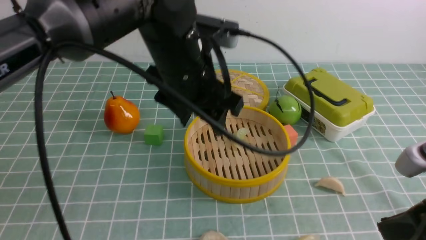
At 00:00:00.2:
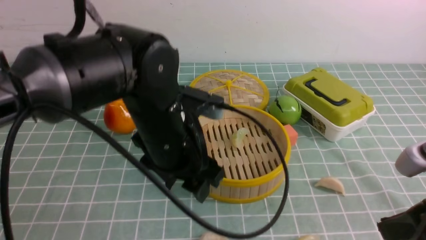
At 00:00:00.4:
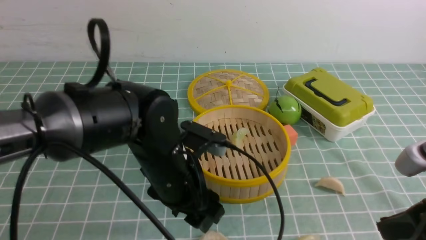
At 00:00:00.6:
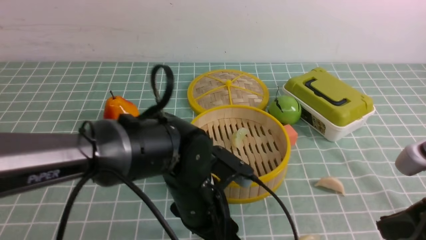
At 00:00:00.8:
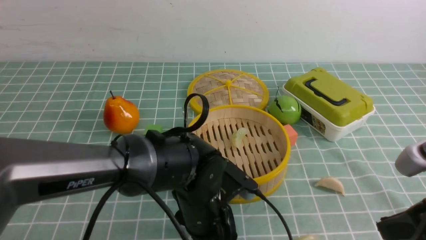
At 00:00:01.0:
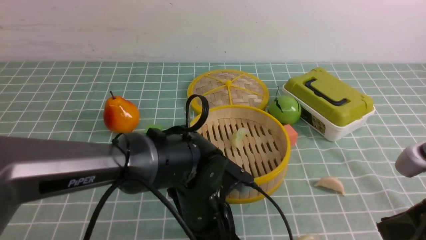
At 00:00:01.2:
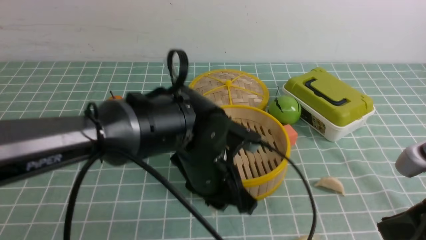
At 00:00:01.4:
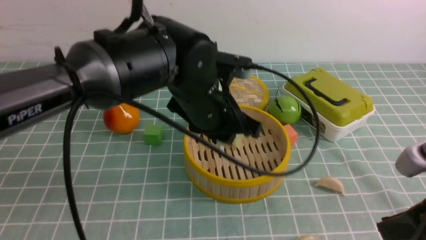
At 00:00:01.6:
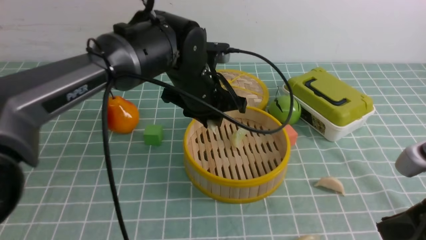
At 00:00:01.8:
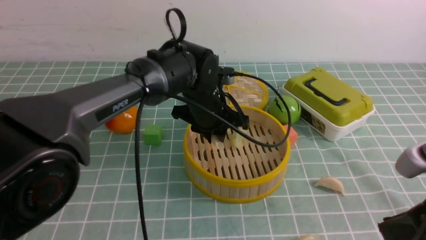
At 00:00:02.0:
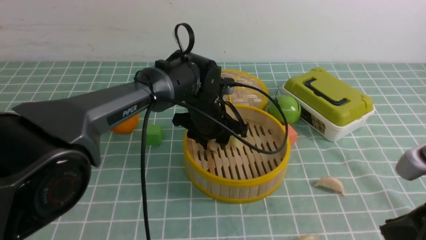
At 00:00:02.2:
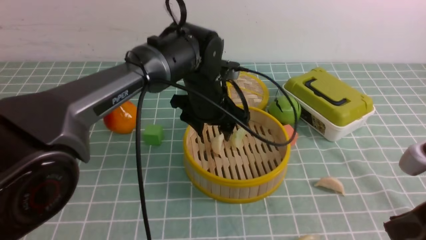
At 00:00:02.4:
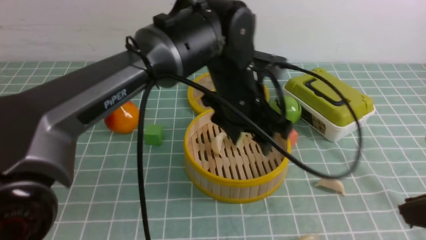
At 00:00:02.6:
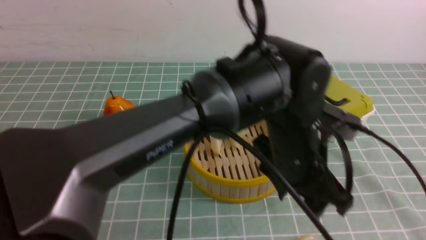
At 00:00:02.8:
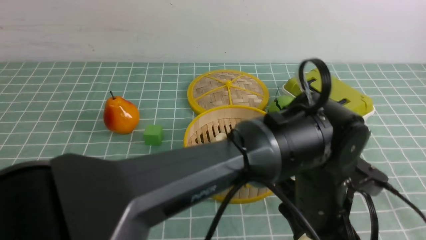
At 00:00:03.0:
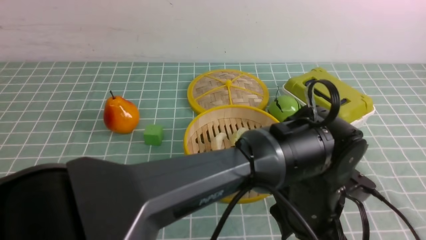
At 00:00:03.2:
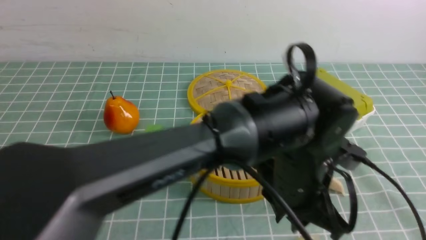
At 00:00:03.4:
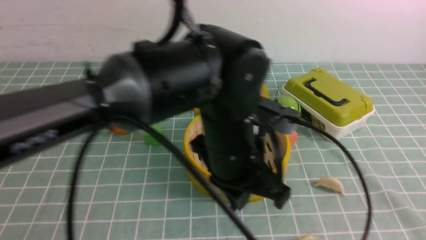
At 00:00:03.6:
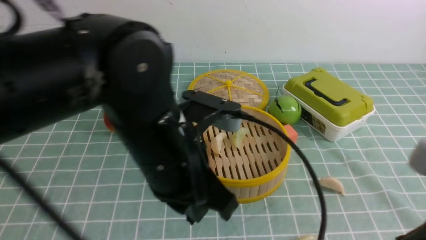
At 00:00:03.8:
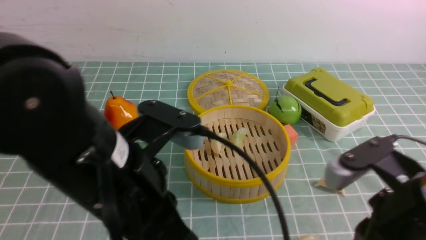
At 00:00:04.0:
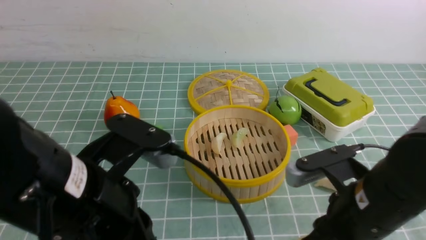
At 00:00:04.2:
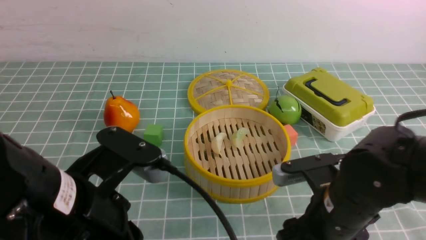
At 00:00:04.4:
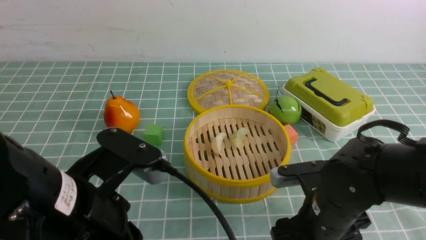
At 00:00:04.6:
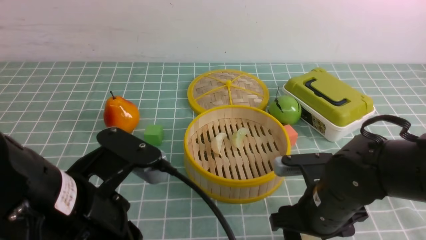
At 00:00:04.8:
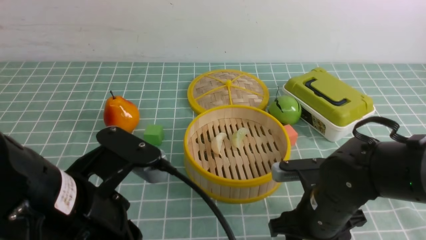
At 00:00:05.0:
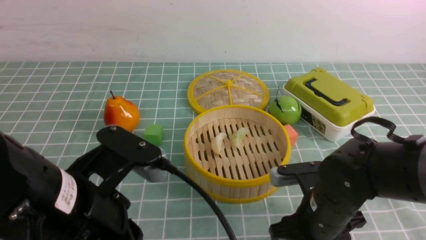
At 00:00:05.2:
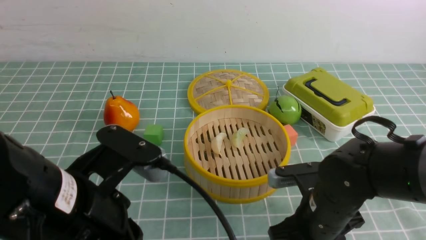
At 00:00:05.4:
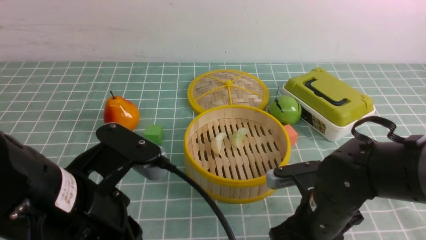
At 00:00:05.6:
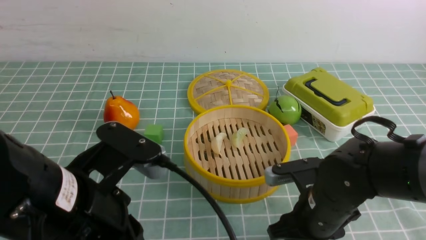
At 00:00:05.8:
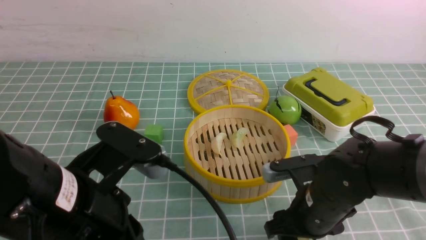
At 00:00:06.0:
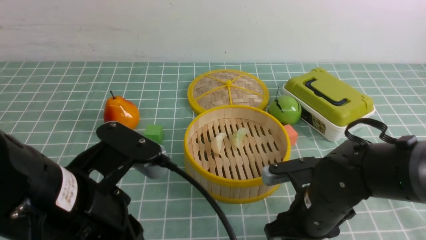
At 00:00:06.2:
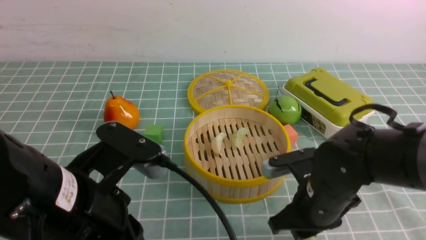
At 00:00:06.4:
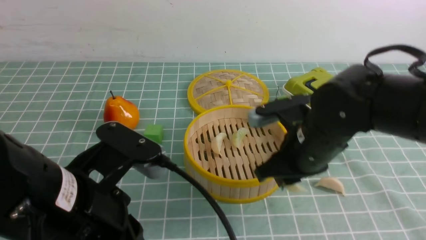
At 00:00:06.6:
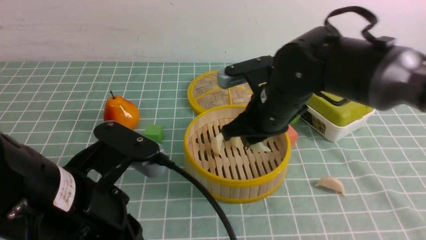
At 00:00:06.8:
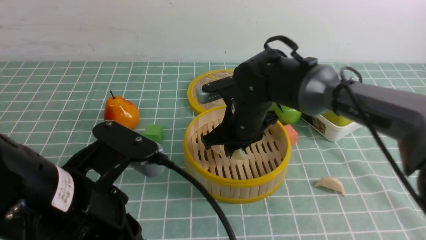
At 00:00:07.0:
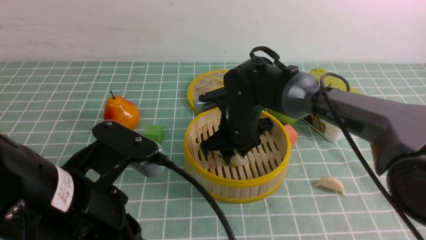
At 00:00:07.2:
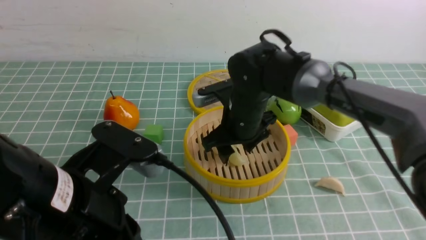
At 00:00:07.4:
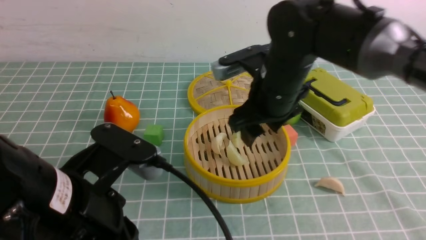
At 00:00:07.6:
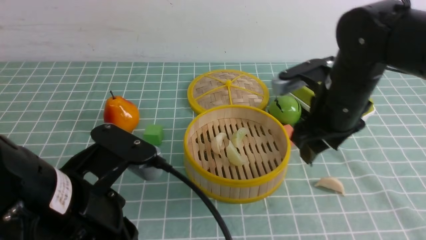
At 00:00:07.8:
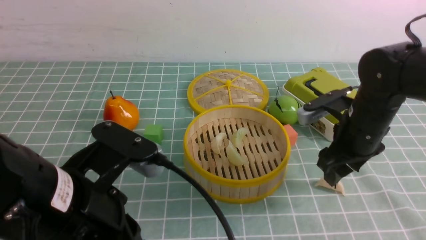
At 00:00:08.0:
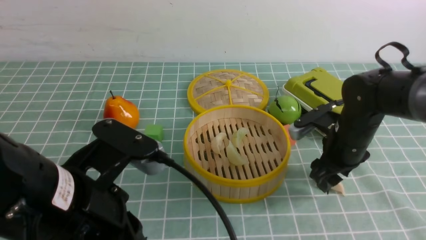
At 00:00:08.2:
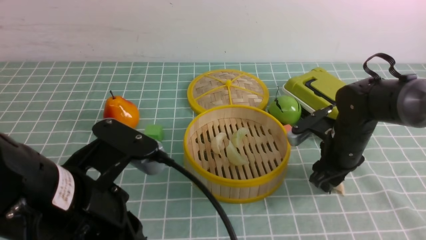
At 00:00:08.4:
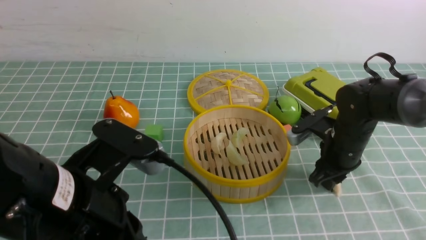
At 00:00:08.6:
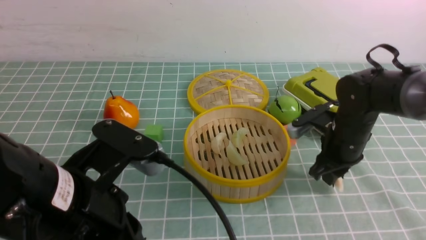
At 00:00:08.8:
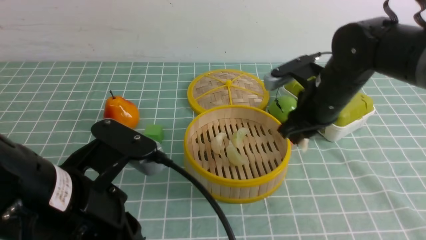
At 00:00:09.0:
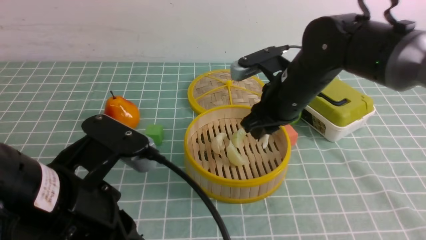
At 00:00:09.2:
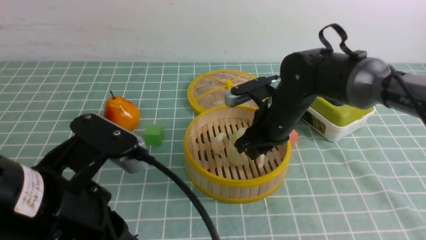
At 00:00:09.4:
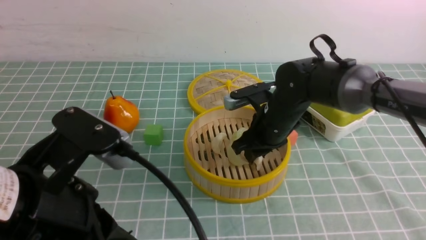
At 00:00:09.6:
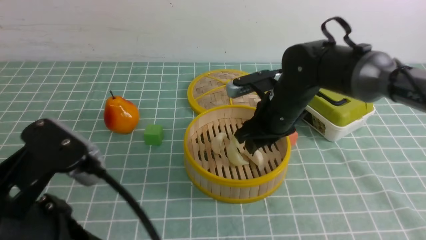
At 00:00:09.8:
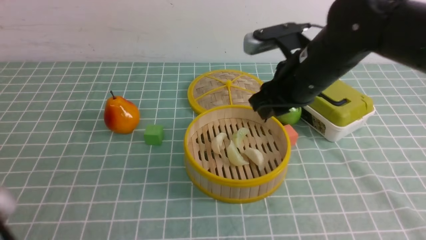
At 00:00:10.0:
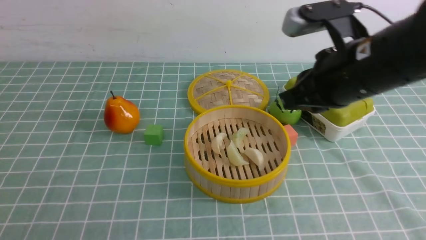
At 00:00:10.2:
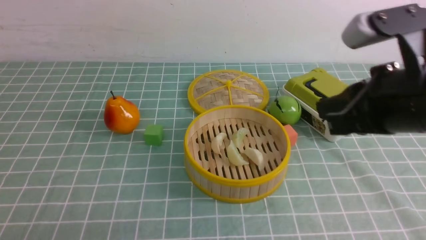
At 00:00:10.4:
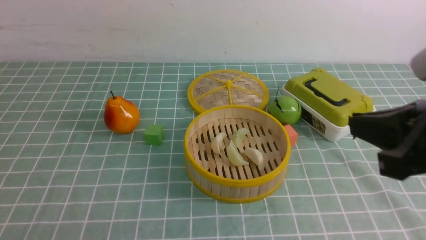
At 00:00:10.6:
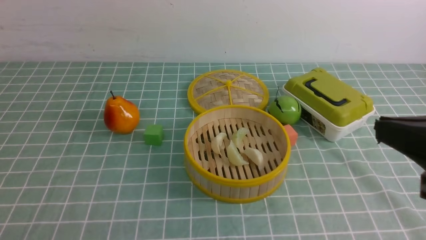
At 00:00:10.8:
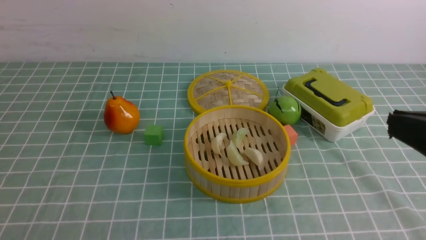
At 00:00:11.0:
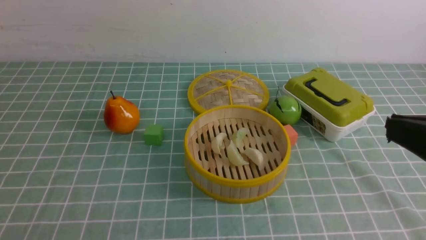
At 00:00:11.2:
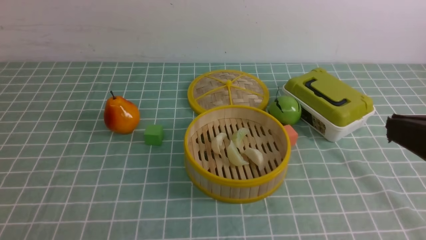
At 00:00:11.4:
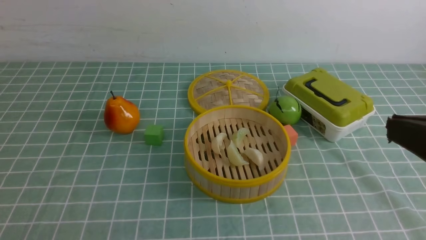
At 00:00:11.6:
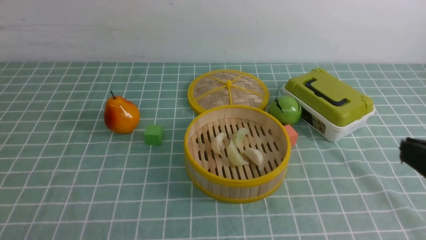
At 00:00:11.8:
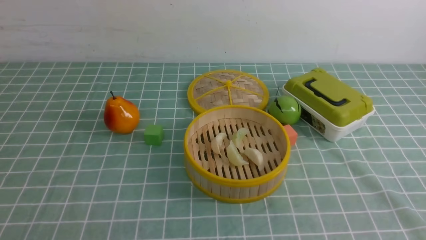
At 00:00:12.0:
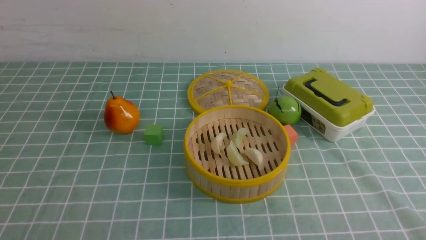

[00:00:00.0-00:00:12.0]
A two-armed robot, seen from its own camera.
Task of the whole recording: put the dumplings into the steamer on the table with the blue tablecloth.
Step, 00:00:00.0 to 00:00:01.2: use the left arm to grab a dumpling.
Step, 00:00:01.4 to 00:00:02.4: use the left arm to put the dumpling into the steamer.
Step, 00:00:02.6 to 00:00:06.4: use the right arm to grab a dumpling.
Step, 00:00:06.6 to 00:00:07.4: use the right arm to put the dumpling into the steamer.
Step, 00:00:07.6 to 00:00:08.6: use the right arm to grab a dumpling.
Step, 00:00:08.8 to 00:00:09.8: use the right arm to put the dumpling into the steamer.
00:00:00.0 to 00:00:01.6: The left gripper moves forward and downward, roughly 10 cm, and closes up.
00:00:01.6 to 00:00:03.0: The right gripper shifts some 10 cm upward and backward. Meanwhile the left gripper goes some 20 cm backward and to the right, and opens its fingers.
00:00:03.0 to 00:00:04.4: The right gripper moves downward, forward and to the left, about 30 cm, and opens up; the left gripper is displaced to the left and backward by approximately 25 cm, and closes.
00:00:04.4 to 00:00:06.0: The grippers move only a little.
00:00:06.0 to 00:00:07.6: The right gripper shifts roughly 15 cm upward and forward.
00:00:07.6 to 00:00:09.0: The right gripper goes downward and returns, approximately 10 cm each way, and closes.
00:00:09.0 to 00:00:10.4: The right gripper heads backward, upward and to the right, covering about 25 cm, and closes its fingers, while the left gripper is displaced to the left and backward by roughly 15 cm.
00:00:10.4 to 00:00:12.0: The right gripper heads downward, backward and to the right, covering roughly 20 cm.

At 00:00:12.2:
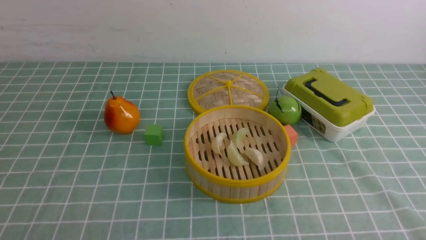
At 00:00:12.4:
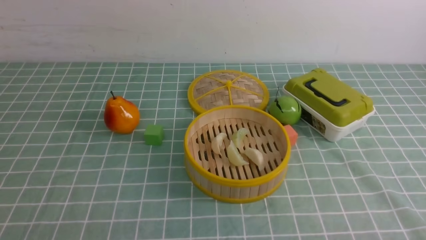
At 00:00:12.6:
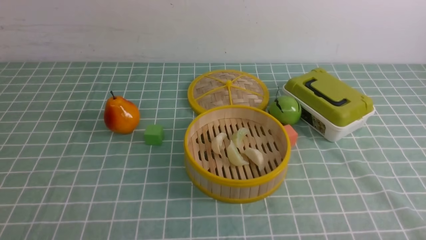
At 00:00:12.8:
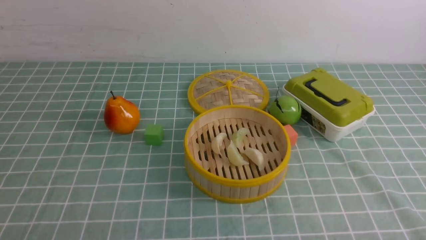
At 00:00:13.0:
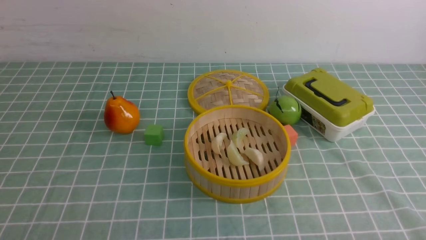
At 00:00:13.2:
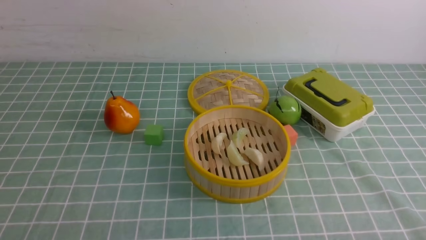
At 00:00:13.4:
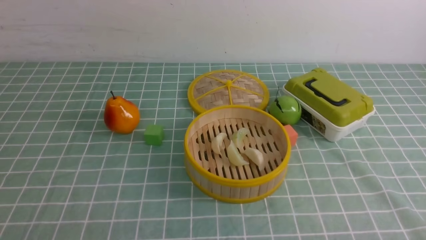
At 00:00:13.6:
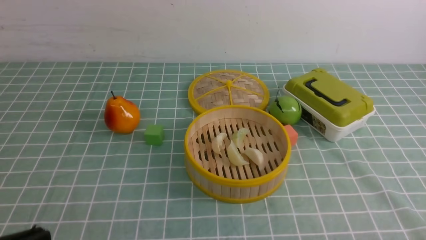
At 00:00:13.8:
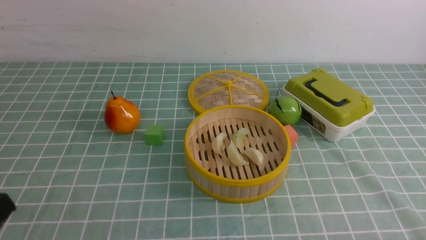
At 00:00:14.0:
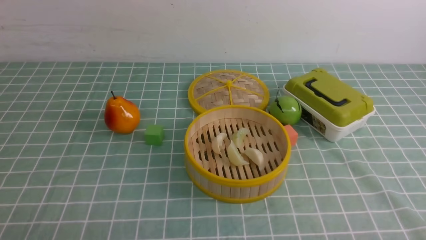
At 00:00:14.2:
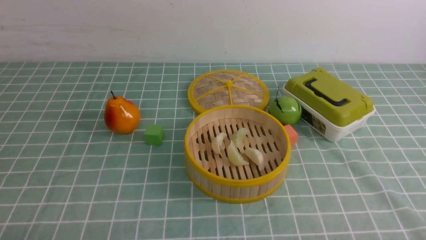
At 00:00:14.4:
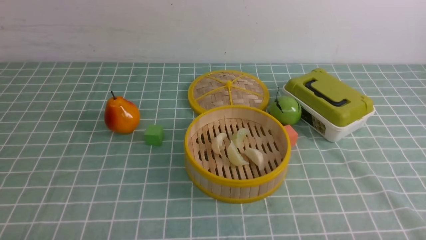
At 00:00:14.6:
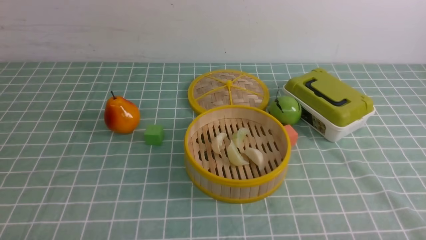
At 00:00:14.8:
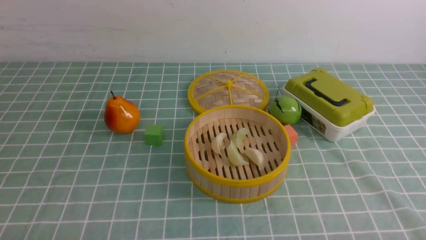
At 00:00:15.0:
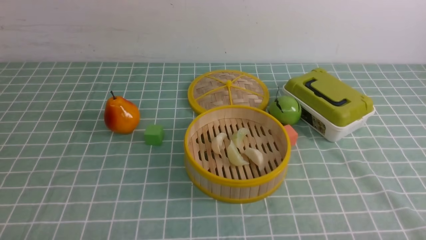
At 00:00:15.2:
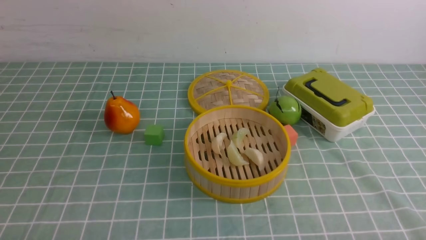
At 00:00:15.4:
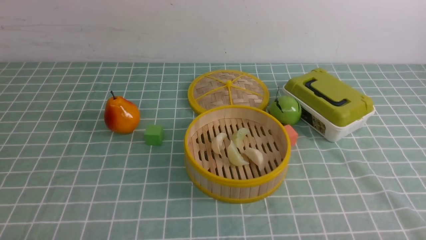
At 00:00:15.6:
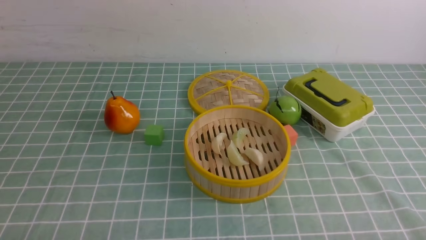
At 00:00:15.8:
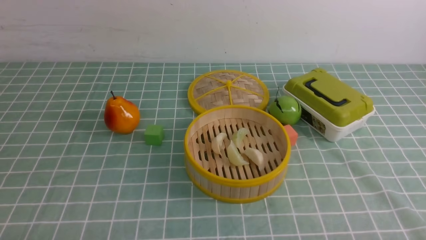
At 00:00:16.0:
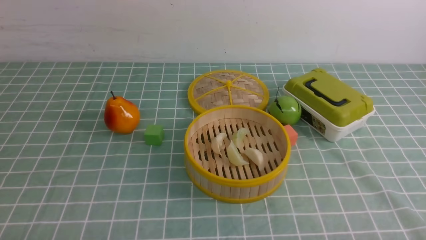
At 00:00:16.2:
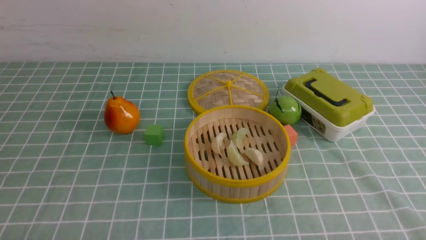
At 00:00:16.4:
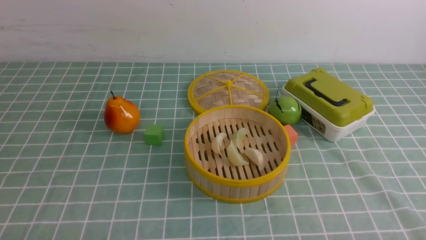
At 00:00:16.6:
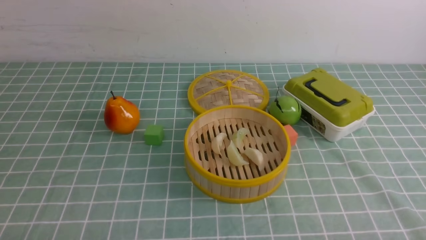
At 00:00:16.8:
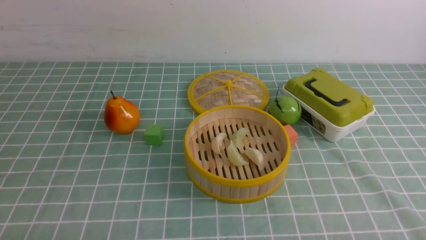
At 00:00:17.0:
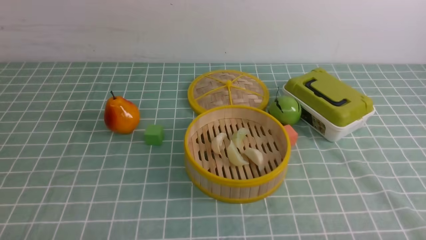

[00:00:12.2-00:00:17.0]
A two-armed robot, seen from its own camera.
Task of the whole recording: put the dumplings into the steamer on the table with the blue tablecloth.
00:00:15.4 to 00:00:17.0: Both grippers stay about where they are.
